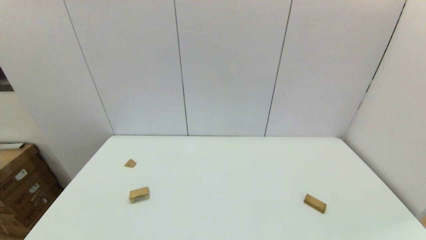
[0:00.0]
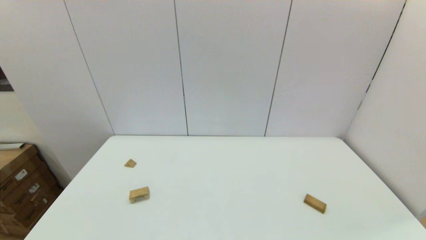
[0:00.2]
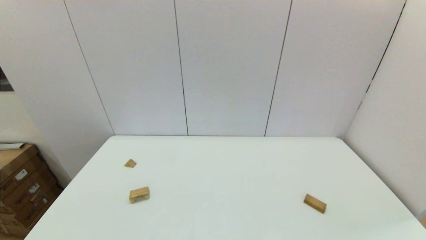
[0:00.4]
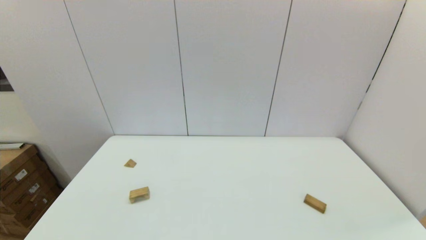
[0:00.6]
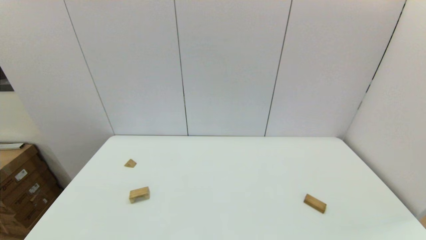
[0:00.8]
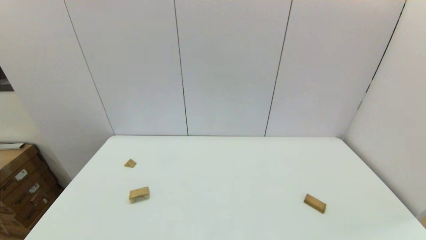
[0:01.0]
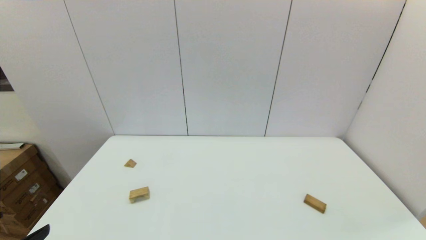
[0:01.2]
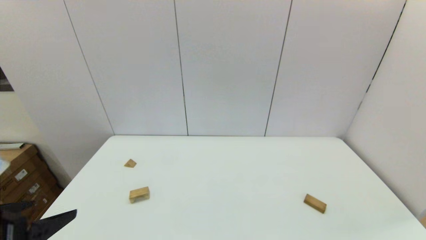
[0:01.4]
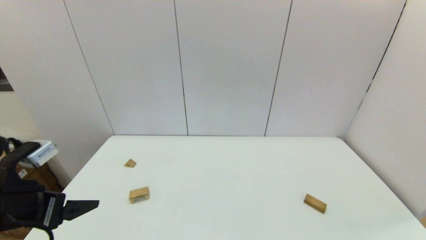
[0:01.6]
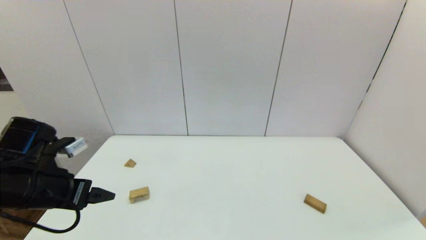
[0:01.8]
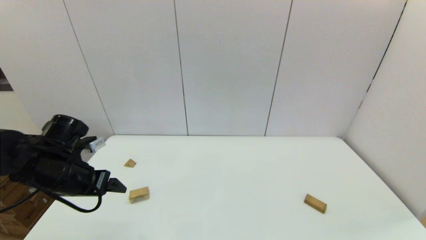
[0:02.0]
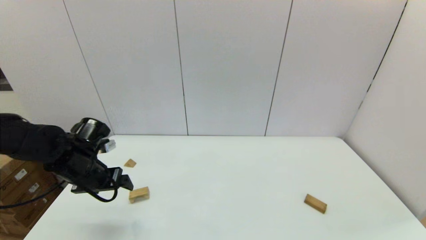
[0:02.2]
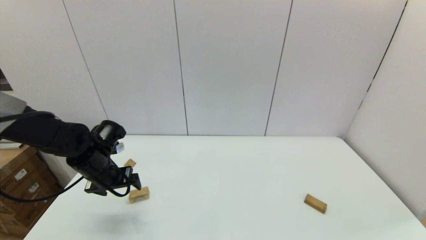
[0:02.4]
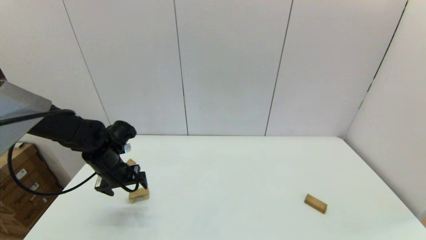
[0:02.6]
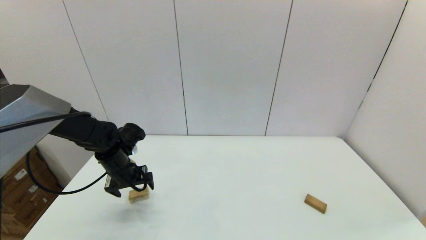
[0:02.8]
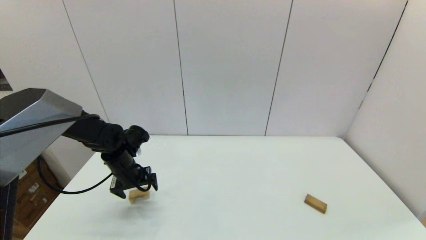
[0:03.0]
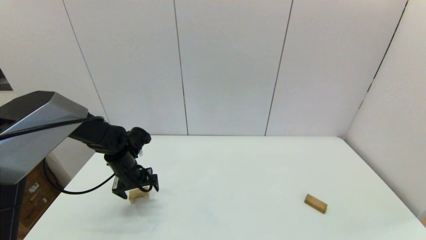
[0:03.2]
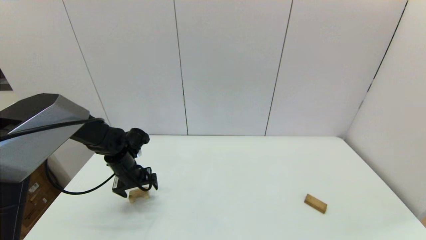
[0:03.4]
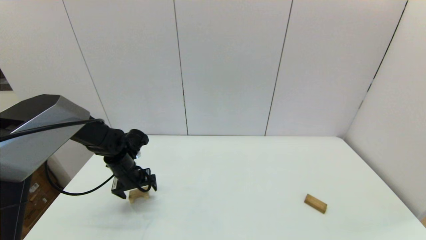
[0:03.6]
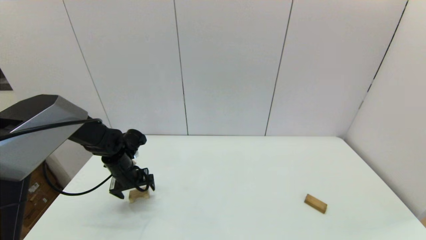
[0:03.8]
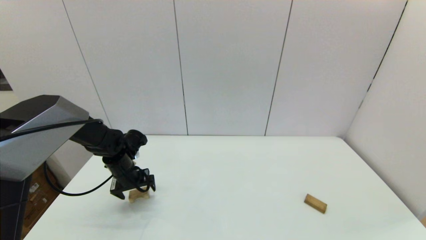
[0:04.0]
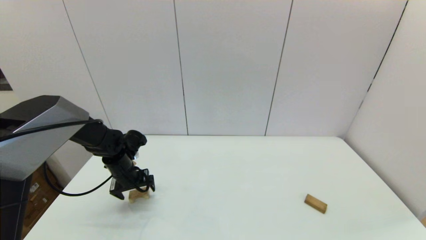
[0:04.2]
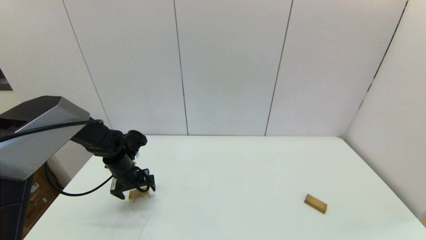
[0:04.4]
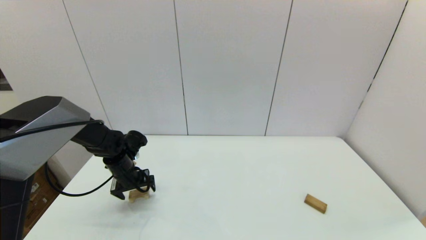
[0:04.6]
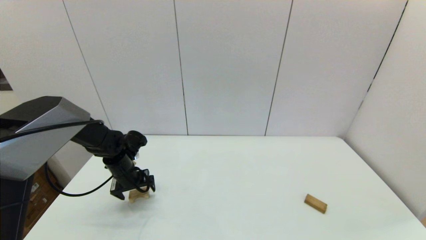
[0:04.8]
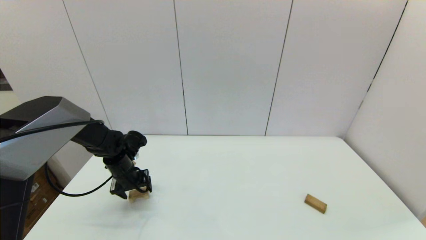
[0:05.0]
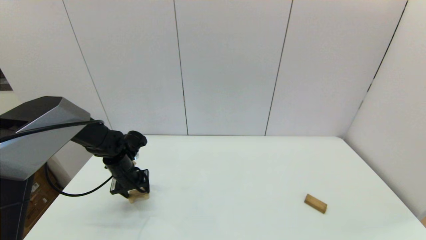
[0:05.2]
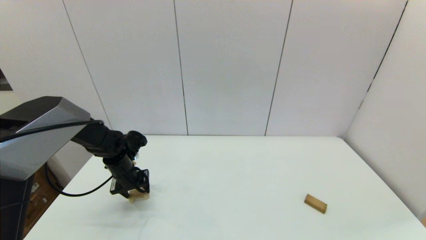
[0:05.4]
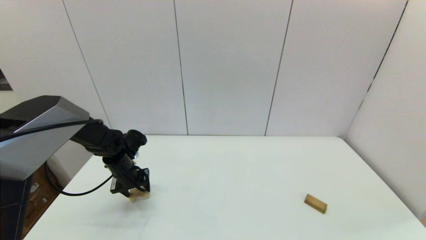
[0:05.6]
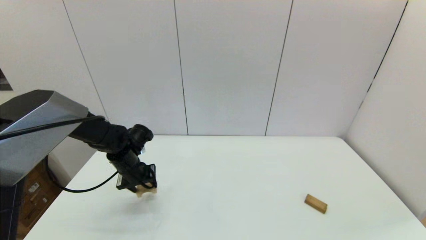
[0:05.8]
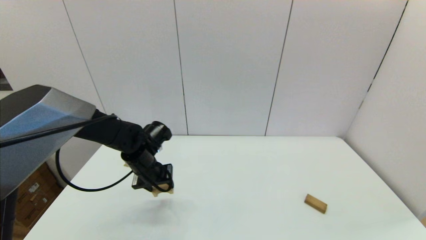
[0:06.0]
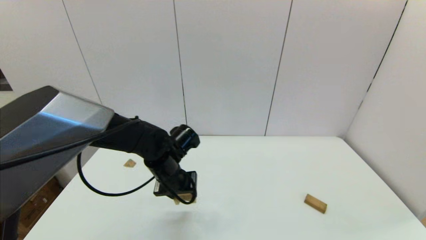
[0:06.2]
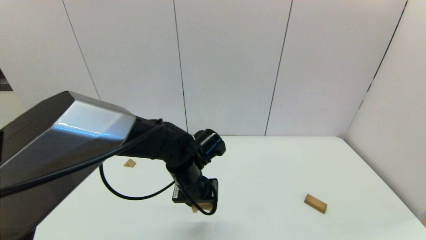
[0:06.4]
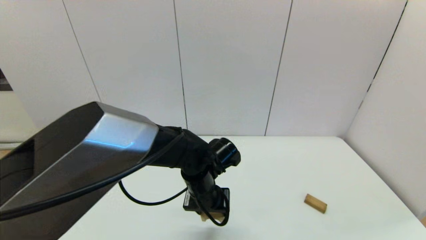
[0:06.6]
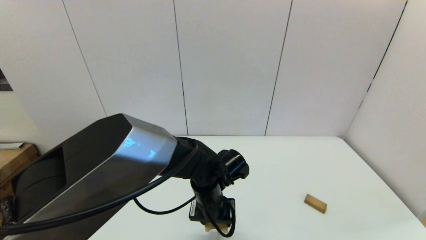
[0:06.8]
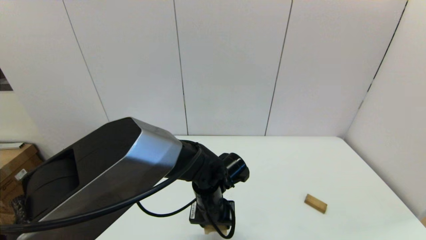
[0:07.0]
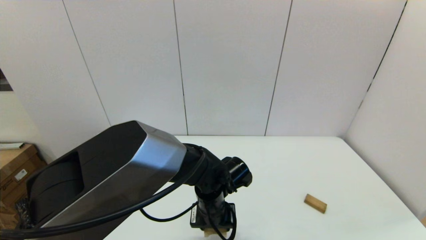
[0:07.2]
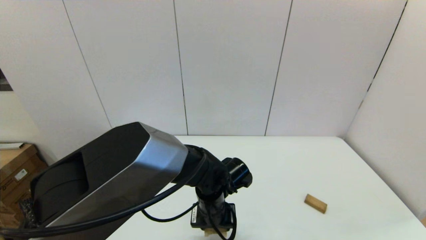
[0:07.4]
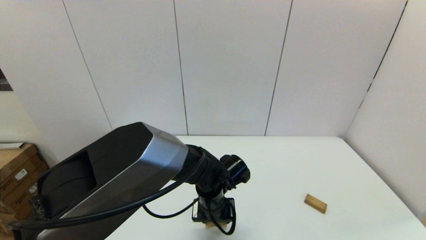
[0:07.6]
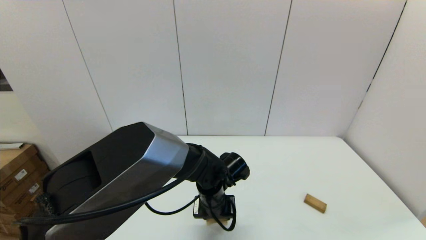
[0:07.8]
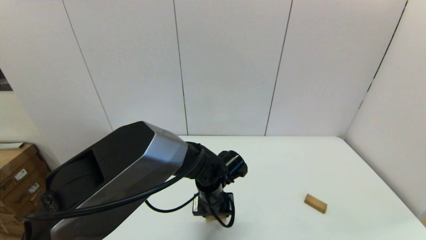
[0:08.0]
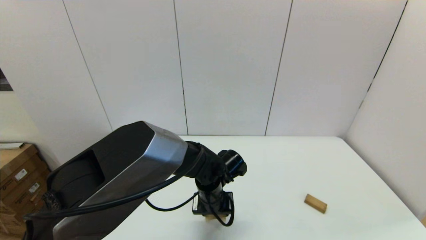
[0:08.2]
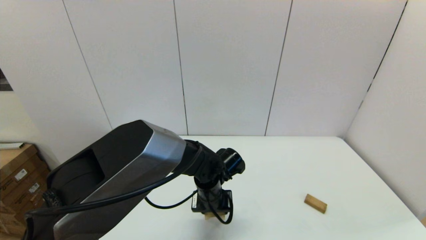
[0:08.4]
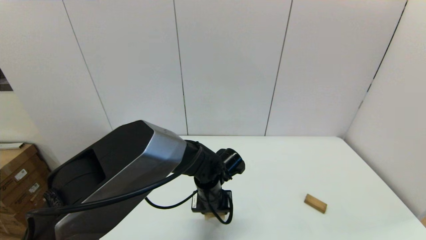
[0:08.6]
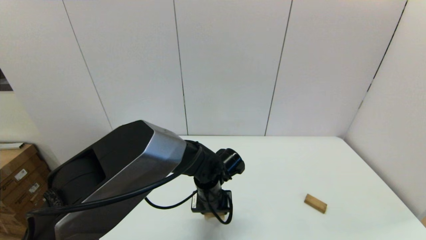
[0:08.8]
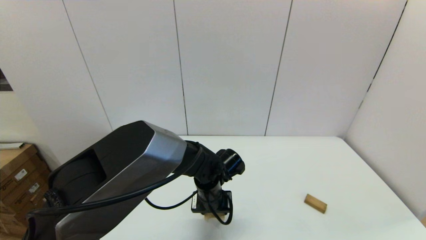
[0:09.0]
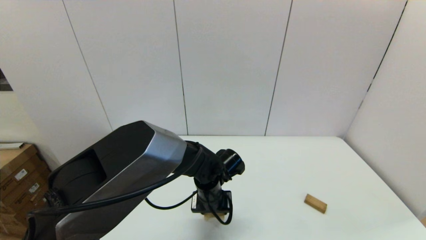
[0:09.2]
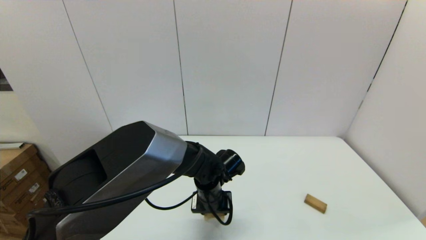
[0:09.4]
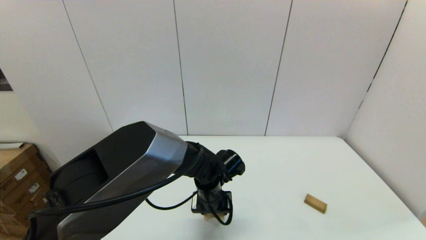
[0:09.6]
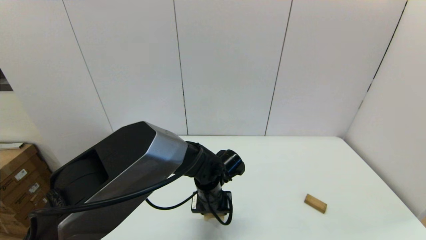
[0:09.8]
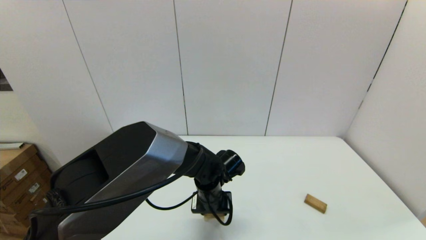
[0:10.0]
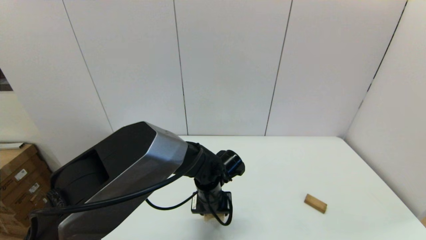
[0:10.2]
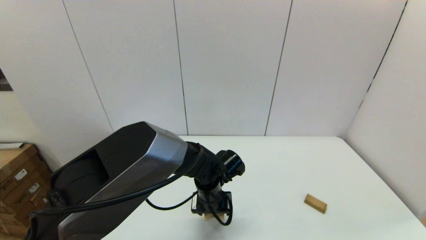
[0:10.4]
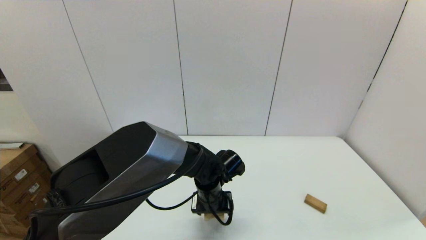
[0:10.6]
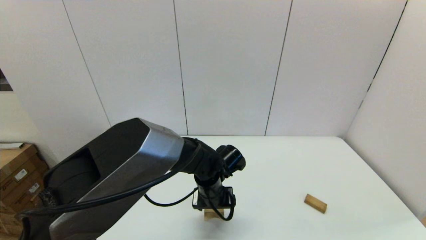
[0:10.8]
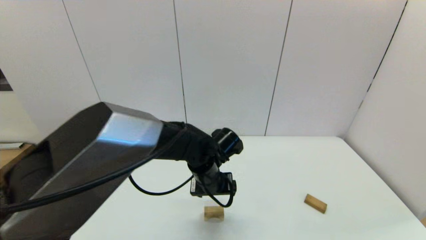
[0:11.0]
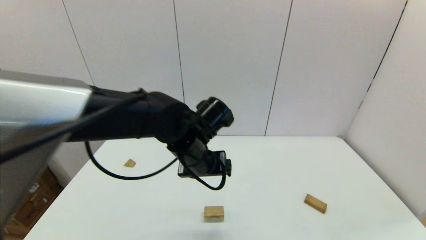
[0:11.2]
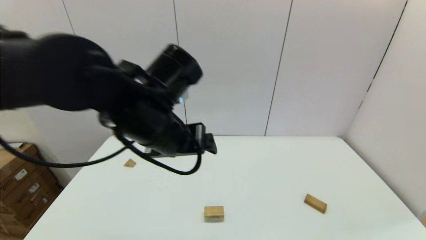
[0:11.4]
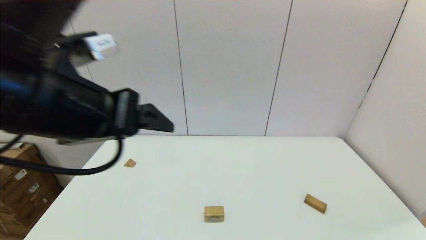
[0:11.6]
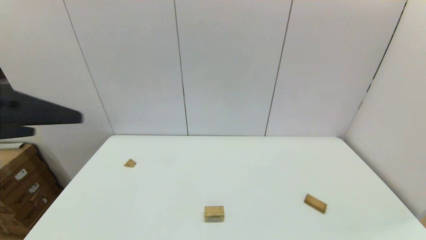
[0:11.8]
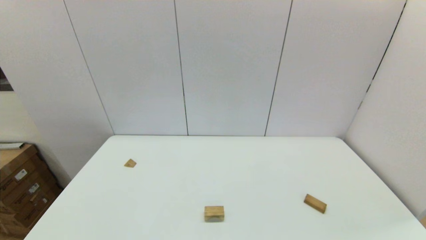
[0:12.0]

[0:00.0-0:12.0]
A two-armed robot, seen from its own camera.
Task of the whole recording: place the arched building blocks in the center of the table, set up the rectangular building blocks, and then set up the triangular building blocks.
Step, 0:01.2 to 0:05.2: Grasp the arch-shaped block with the left gripper.
Step, 0:05.4 to 0:10.2: Place the arch-shaped block in the center of view with the left gripper.
0:00.0 to 0:01.6: The left gripper goes some 20 cm forward and upward.
0:01.6 to 0:03.0: The left gripper travels forward and downward by some 25 cm.
0:03.0 to 0:04.4: The grippers move only a little.
0:04.4 to 0:06.0: The left gripper shifts some 10 cm to the right and upward, and closes.
0:06.0 to 0:07.6: The left gripper shifts roughly 15 cm to the right.
0:07.6 to 0:09.0: The grippers stay close to where they were, moving slightly.
0:09.0 to 0:10.4: The two grippers keep their place.
0:10.4 to 0:12.0: The left gripper shifts some 50 cm upward, to the left and backward.

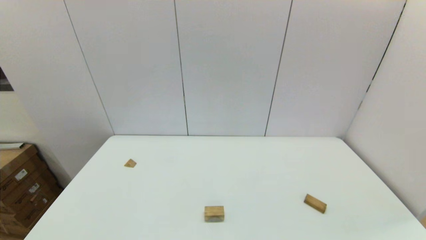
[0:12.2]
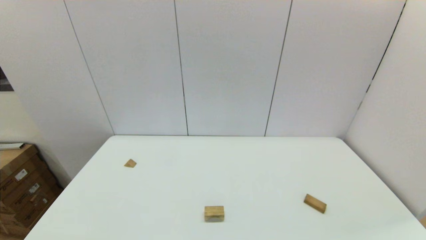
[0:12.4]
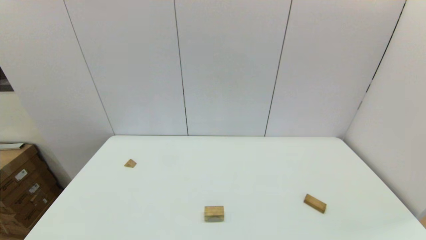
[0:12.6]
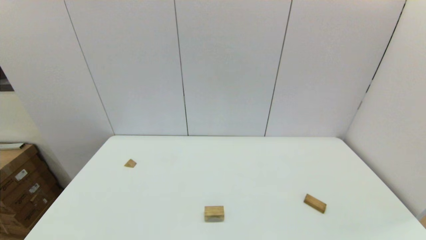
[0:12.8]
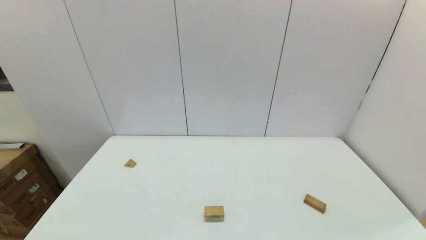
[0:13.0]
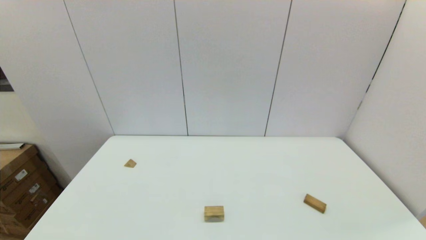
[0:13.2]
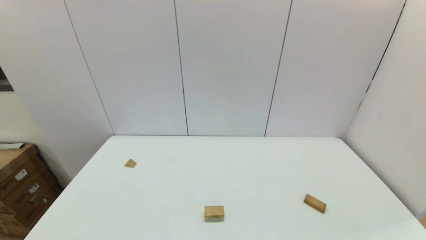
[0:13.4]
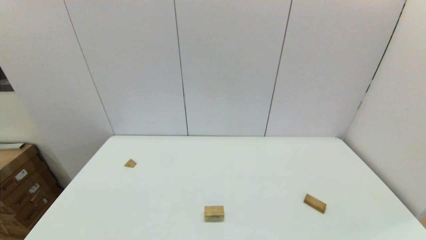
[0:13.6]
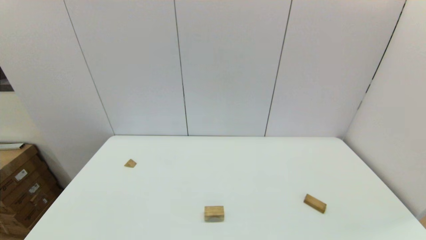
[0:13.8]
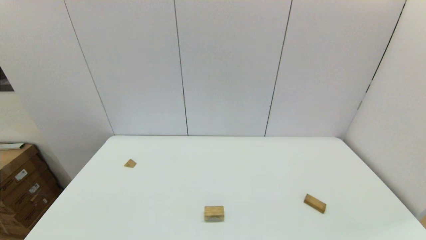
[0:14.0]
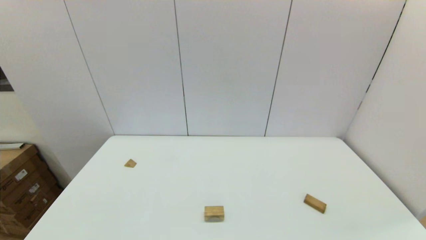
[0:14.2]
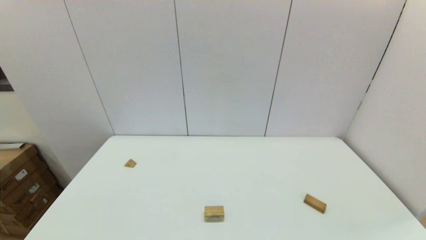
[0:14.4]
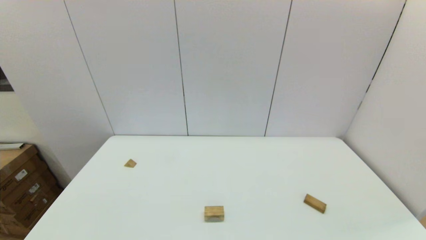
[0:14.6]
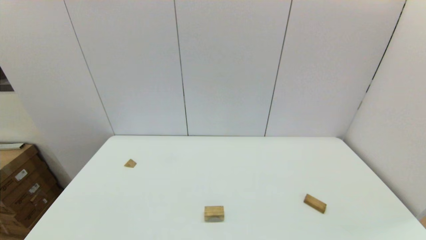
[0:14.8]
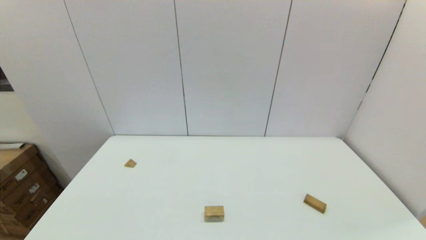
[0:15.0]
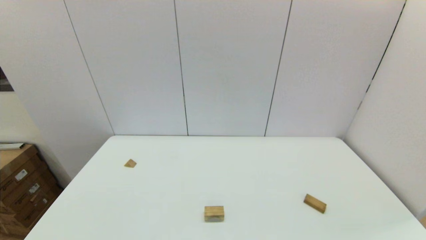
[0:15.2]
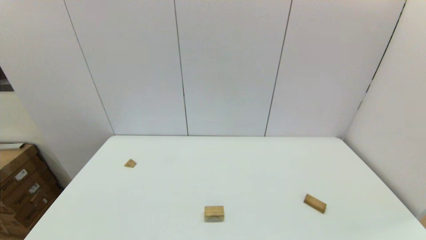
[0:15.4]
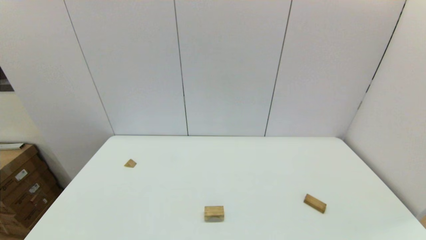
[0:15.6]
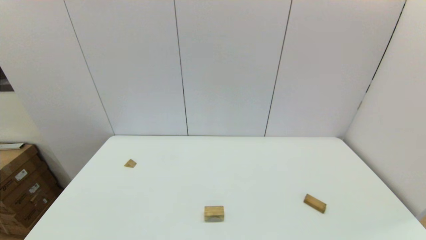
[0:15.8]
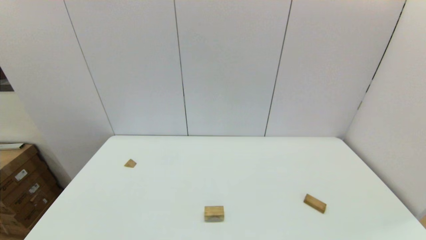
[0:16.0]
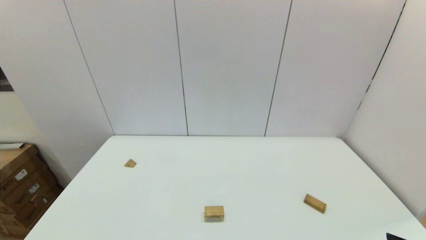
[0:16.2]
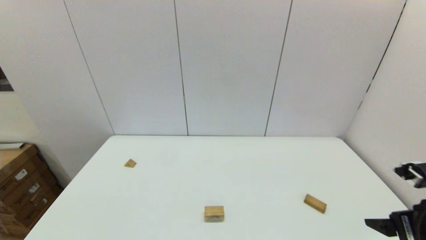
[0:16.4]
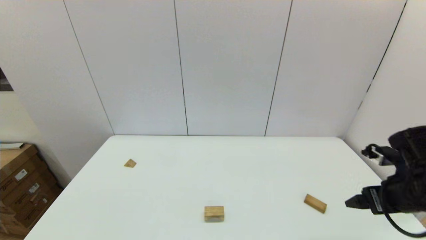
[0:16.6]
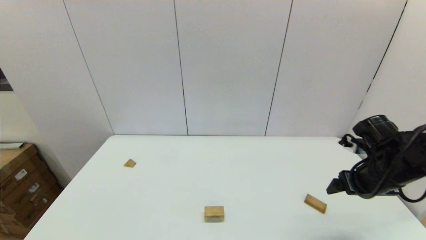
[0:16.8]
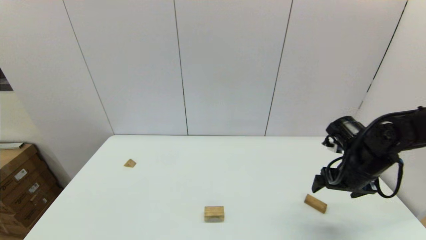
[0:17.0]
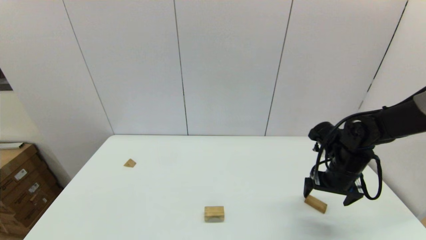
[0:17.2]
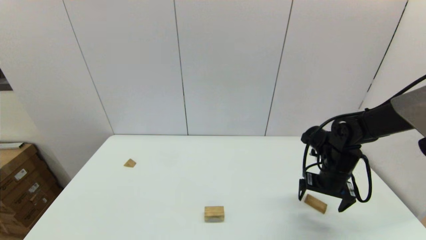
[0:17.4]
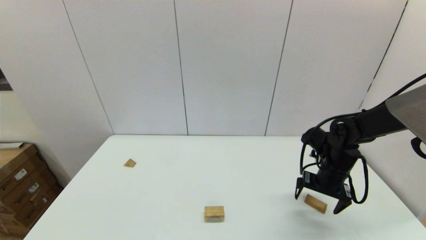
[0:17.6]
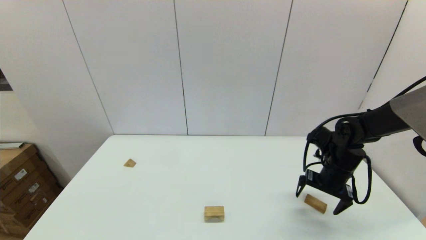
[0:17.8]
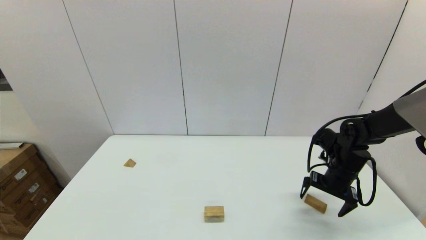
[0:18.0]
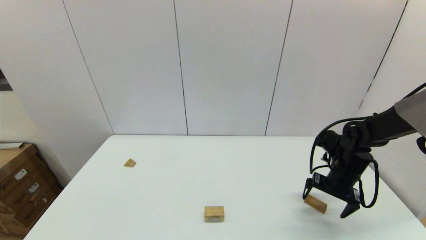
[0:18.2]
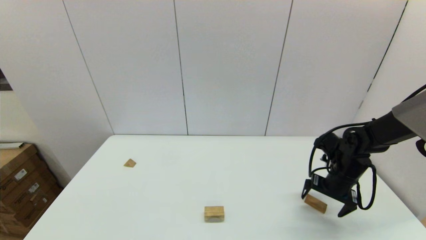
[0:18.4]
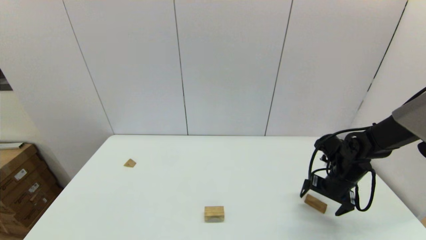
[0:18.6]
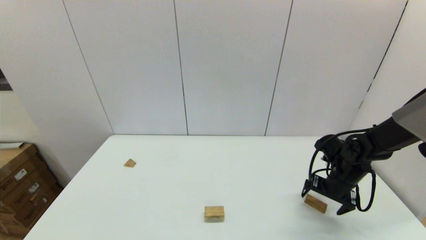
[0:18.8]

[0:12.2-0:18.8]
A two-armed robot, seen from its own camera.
Task of the whole recording: place the arched building blocks in the center of the table, set up the rectangular building blocks, and then set up the triangular building blocks.
0:15.4 to 0:17.2: The right gripper moves forward, approximately 35 cm.
0:17.2 to 0:18.8: The right gripper travels downward by some 5 cm.
